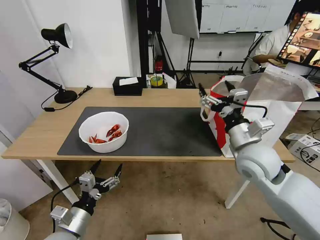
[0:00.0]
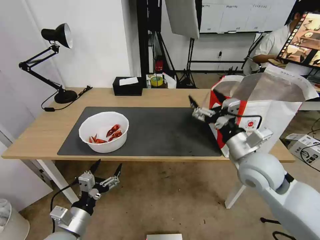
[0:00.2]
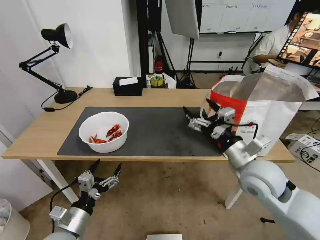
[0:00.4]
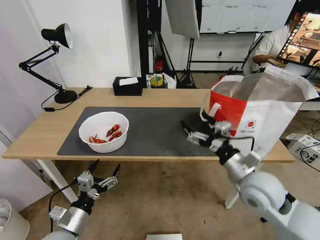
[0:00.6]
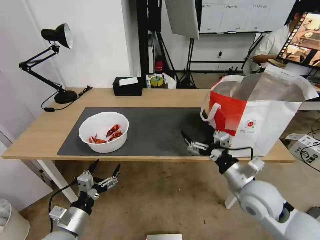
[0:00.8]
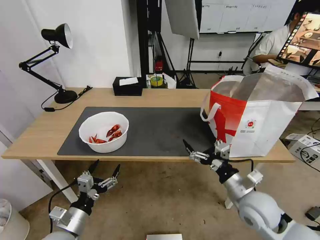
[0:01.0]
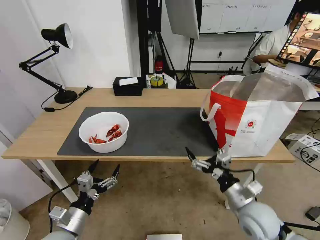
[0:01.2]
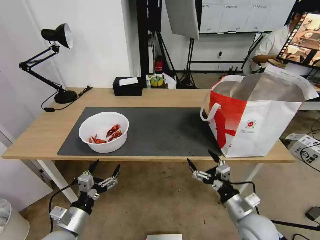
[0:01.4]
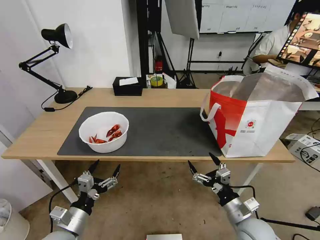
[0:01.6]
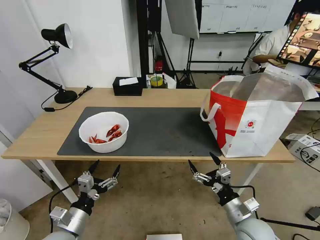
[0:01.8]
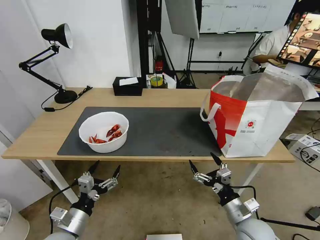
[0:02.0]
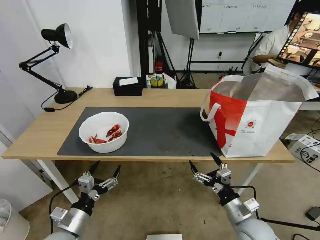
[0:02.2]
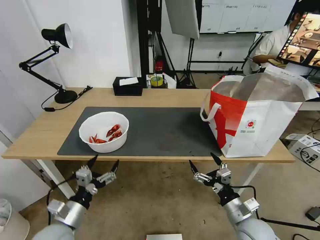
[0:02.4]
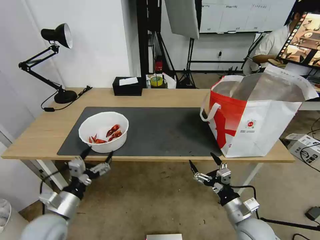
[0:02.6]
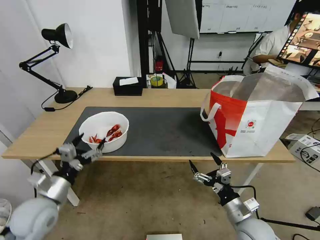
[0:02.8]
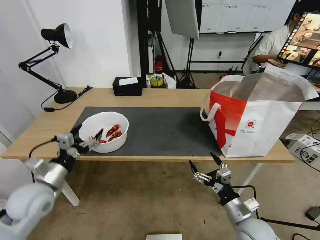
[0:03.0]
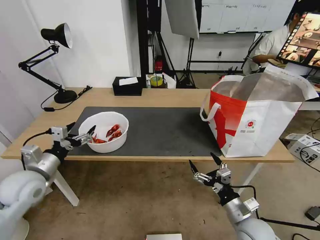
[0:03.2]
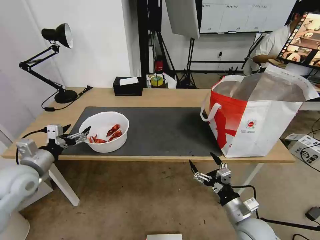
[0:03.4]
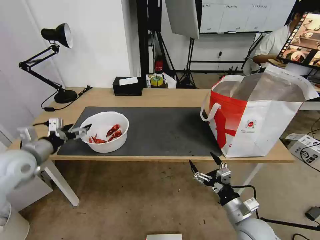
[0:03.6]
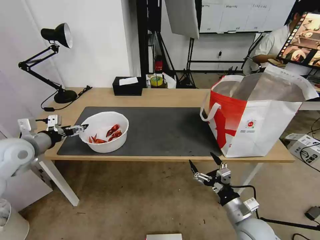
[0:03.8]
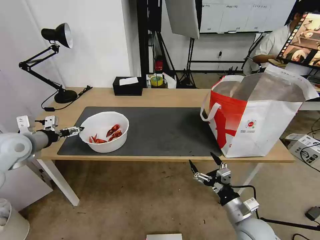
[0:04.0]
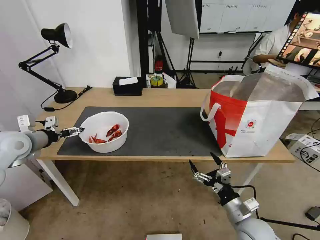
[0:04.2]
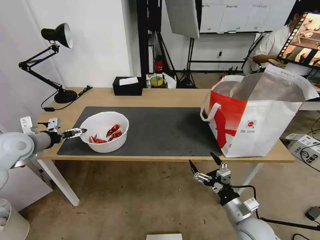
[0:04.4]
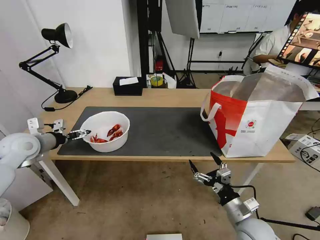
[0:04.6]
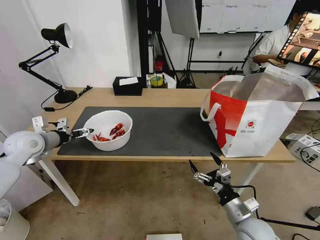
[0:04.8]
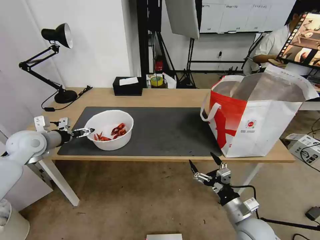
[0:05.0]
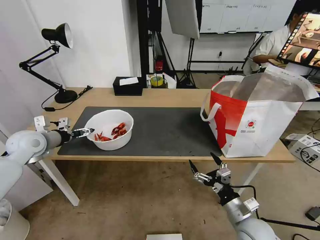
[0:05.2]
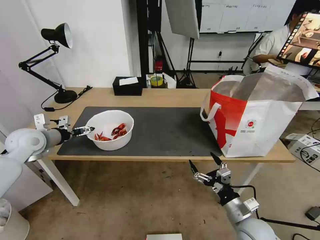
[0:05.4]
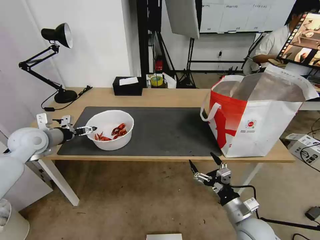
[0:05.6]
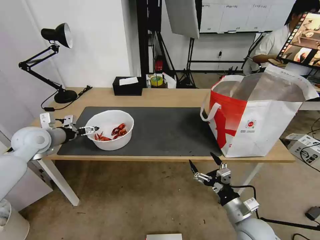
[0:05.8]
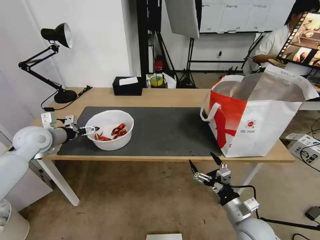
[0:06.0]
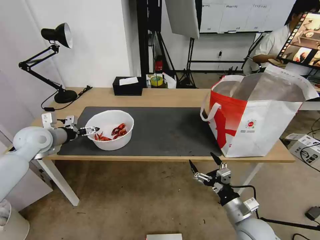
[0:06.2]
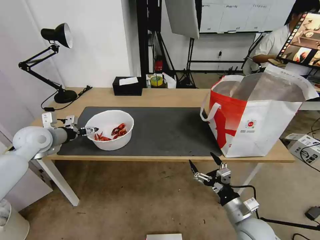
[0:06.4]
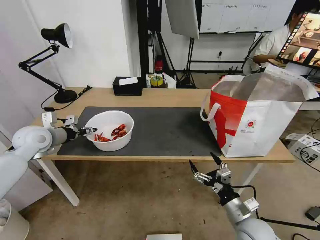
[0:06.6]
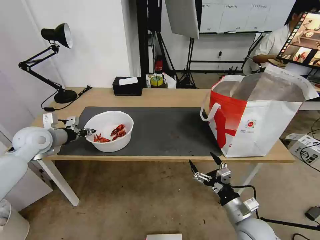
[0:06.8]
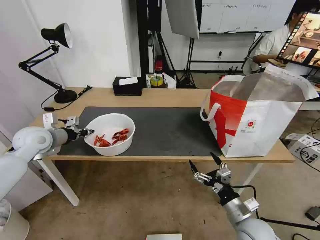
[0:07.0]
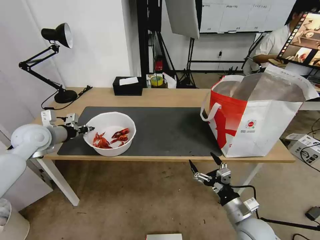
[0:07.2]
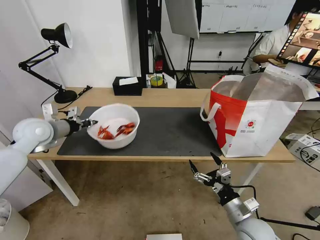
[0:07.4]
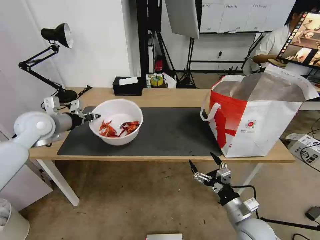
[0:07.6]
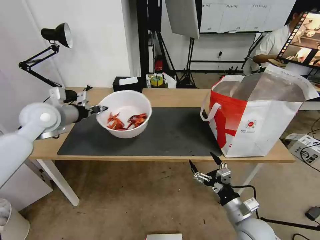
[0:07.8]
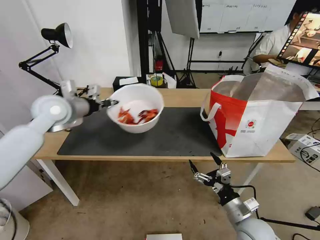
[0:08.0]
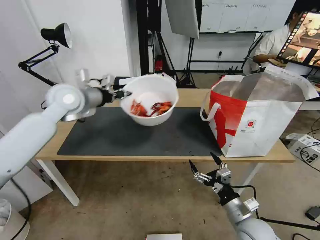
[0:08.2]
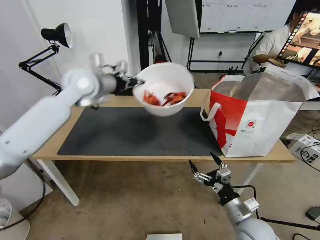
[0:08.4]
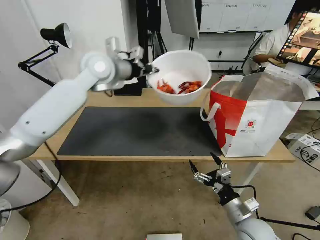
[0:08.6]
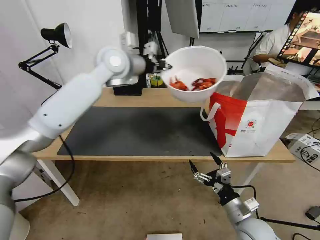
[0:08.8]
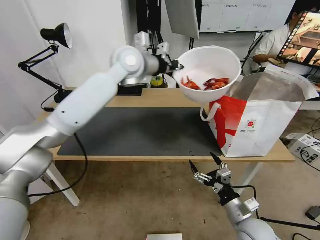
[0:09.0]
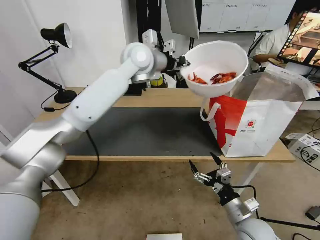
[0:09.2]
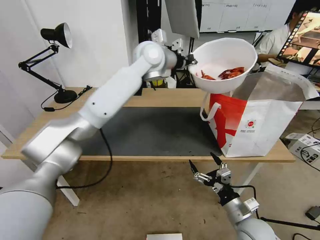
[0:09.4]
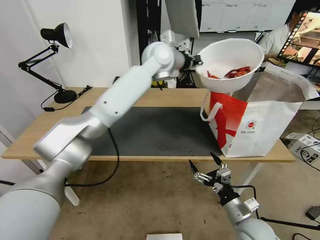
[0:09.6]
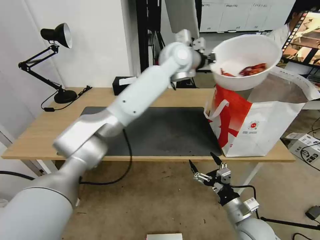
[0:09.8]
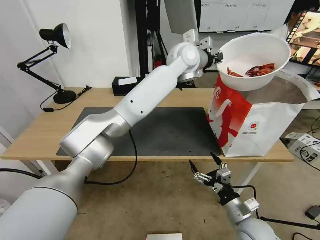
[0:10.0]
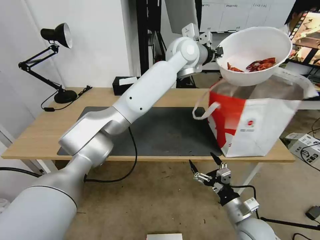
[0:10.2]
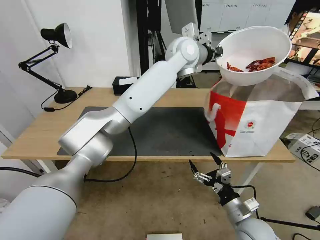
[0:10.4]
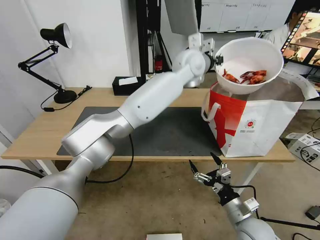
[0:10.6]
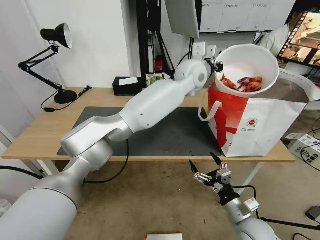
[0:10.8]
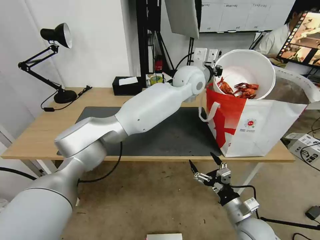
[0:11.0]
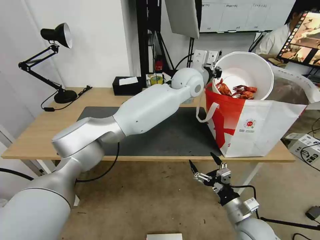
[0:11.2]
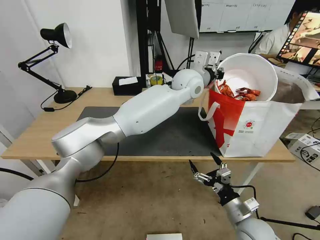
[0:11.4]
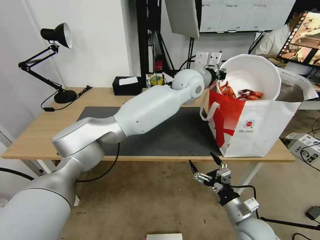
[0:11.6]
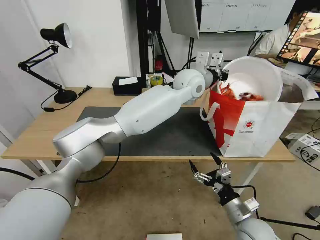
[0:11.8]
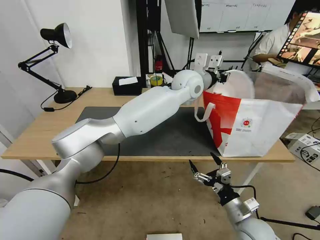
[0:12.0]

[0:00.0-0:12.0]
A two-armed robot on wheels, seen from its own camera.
Task of the whole recording: Pick up the trash from the table and place it into the takeout bag.
0:00.0 to 0:01.6: The right gripper moves downward and backward, some 25 cm.
0:01.6 to 0:03.0: The left gripper moves upward, forward and to the left, about 15 cm.
0:03.0 to 0:04.4: The left gripper is displaced forward, to the left and upward by some 15 cm.
0:04.4 to 0:06.0: The grippers stay close to where they were, moving slightly.
0:06.0 to 0:07.6: The left gripper heads upward, covering roughly 5 cm, and closes.
0:07.6 to 0:09.0: The left gripper heads to the right and upward, covering about 30 cm.
0:09.0 to 0:10.4: The left gripper travels to the right by about 15 cm.
0:10.4 to 0:12.0: The left gripper shifts about 5 cm downward.

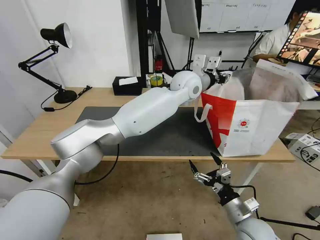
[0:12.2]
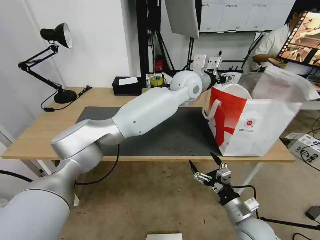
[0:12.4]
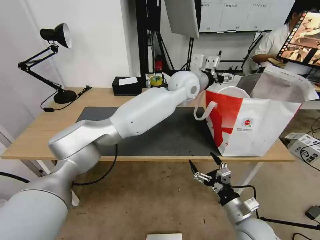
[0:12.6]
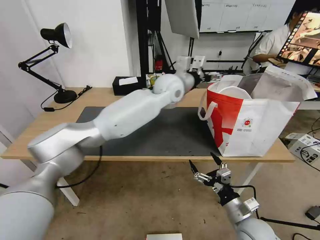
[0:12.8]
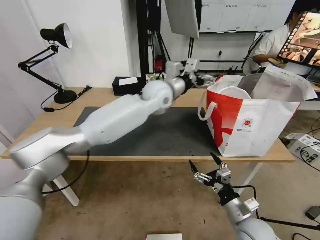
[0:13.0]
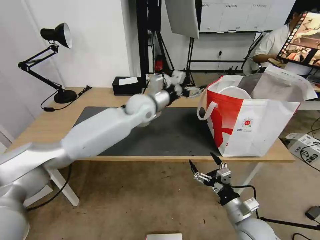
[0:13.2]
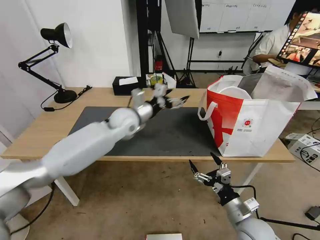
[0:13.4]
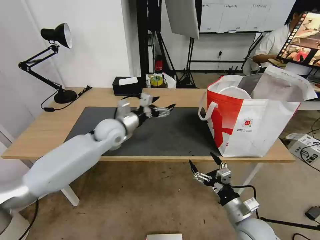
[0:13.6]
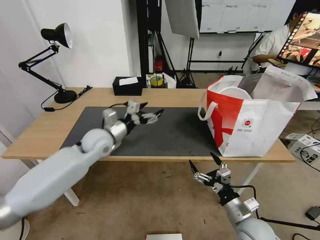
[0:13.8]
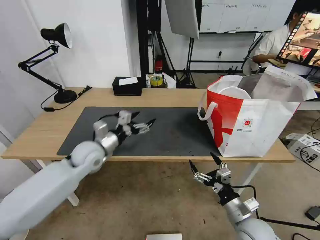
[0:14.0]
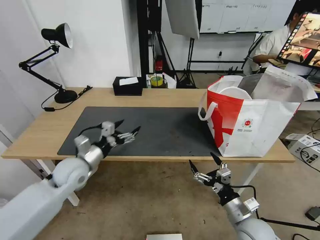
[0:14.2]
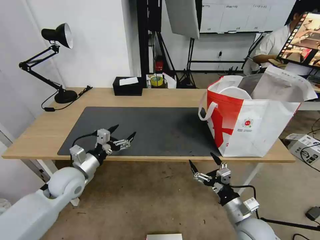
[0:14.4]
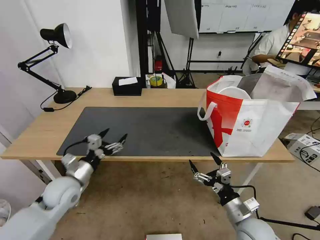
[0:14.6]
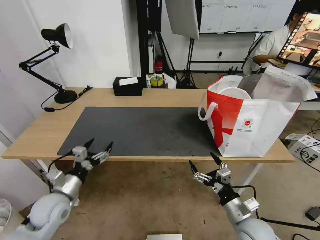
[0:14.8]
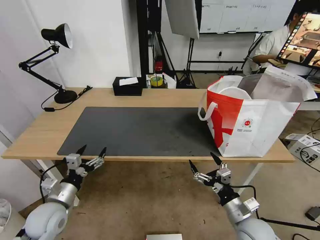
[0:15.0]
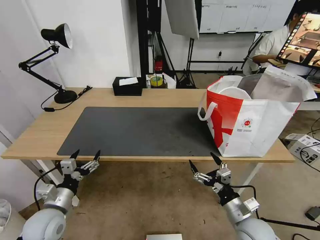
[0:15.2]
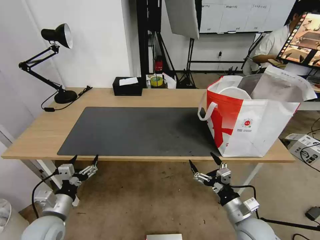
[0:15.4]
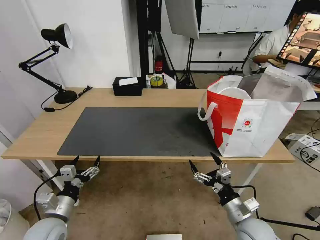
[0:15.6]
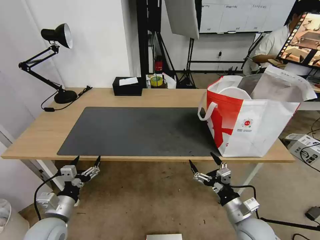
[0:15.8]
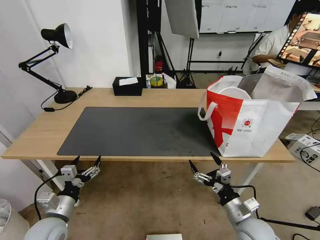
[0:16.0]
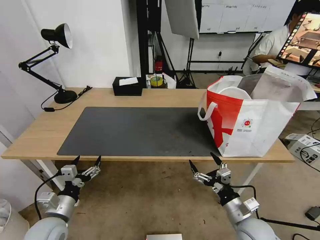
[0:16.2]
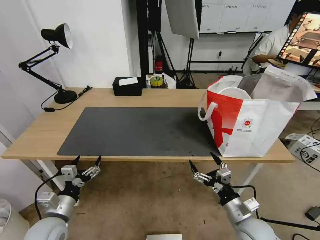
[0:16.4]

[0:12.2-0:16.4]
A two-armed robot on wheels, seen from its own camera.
Task of the whole recording: Pick up the trash from the table and place it into the takeout bag.
0:12.2 to 0:13.6: The left gripper moves to the left and downward, roughly 30 cm, and opens.
0:13.6 to 0:15.0: The left gripper travels backward, to the left and downward by approximately 30 cm.
0:15.0 to 0:16.4: The grippers make only small movements.
